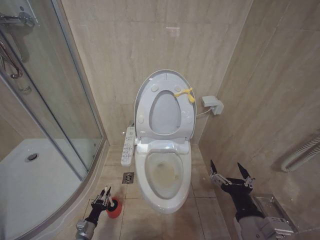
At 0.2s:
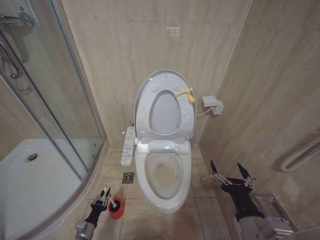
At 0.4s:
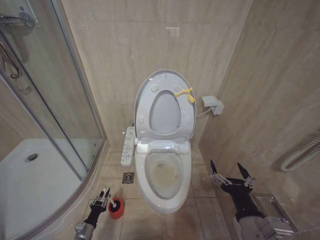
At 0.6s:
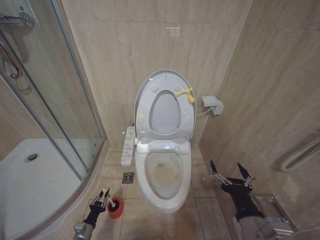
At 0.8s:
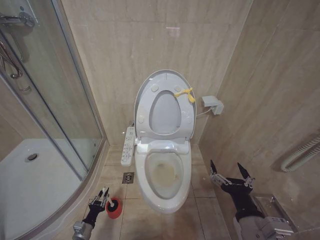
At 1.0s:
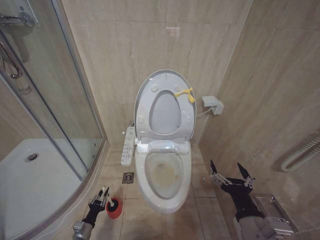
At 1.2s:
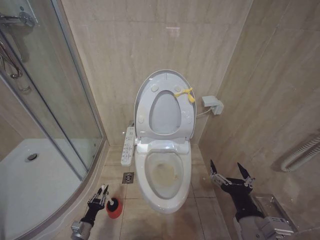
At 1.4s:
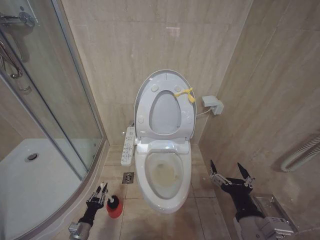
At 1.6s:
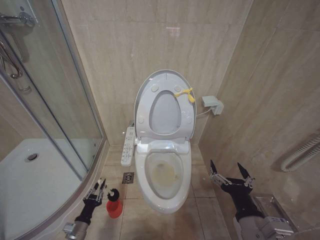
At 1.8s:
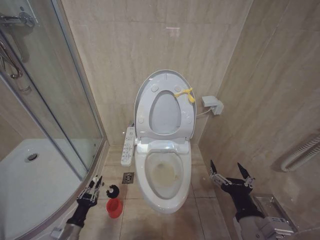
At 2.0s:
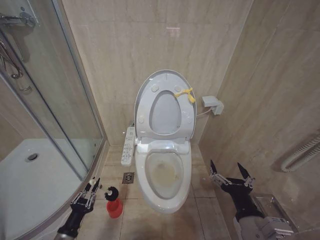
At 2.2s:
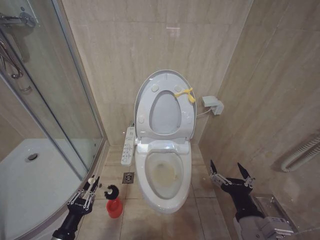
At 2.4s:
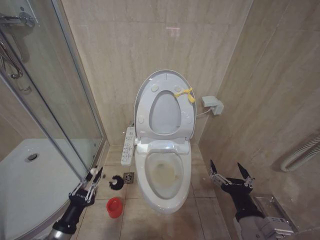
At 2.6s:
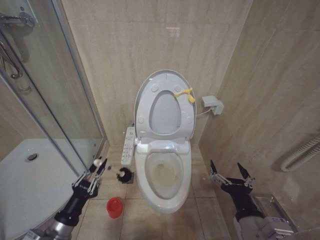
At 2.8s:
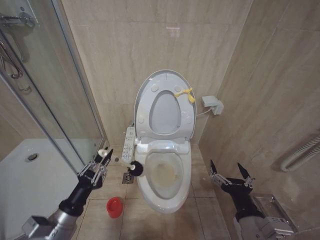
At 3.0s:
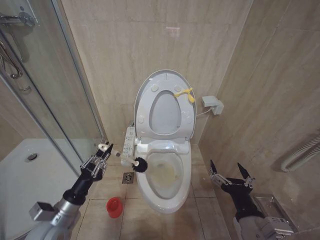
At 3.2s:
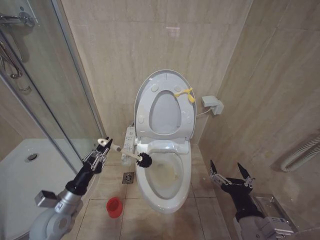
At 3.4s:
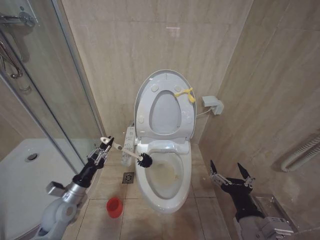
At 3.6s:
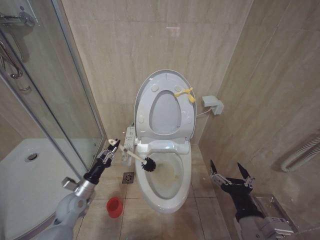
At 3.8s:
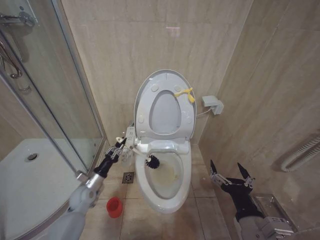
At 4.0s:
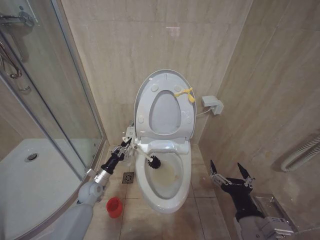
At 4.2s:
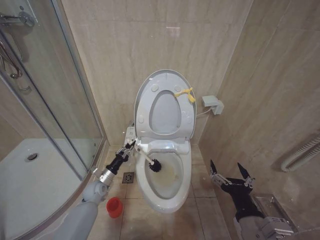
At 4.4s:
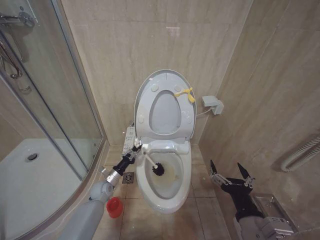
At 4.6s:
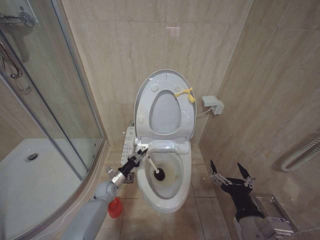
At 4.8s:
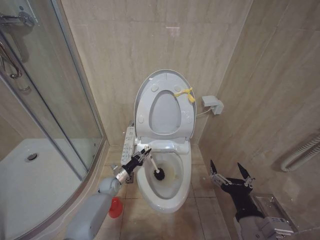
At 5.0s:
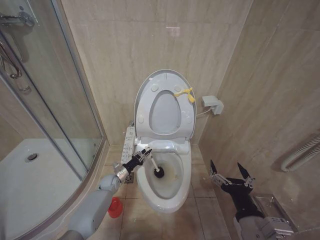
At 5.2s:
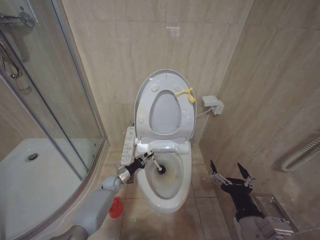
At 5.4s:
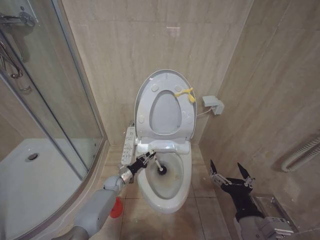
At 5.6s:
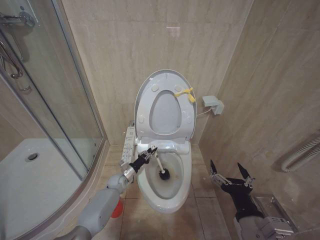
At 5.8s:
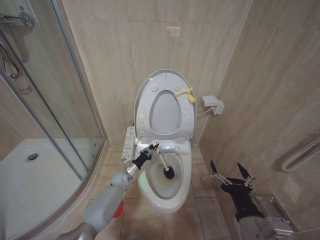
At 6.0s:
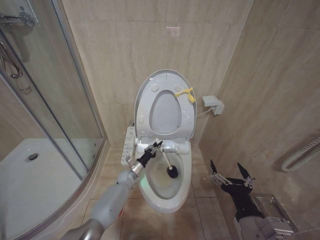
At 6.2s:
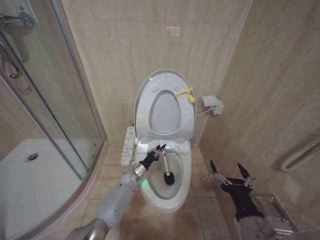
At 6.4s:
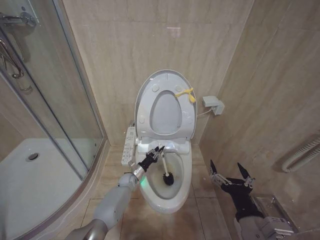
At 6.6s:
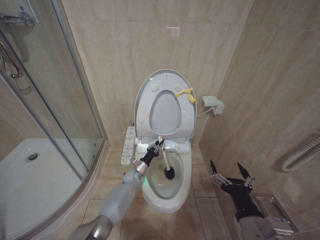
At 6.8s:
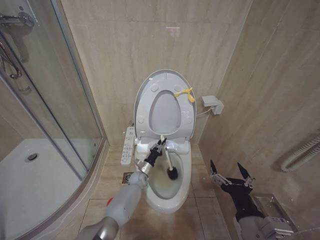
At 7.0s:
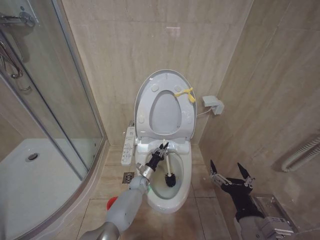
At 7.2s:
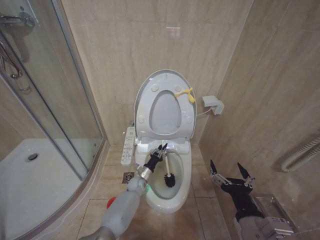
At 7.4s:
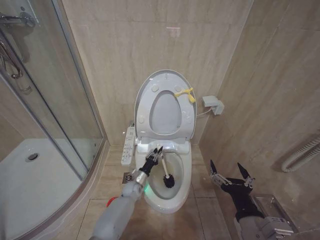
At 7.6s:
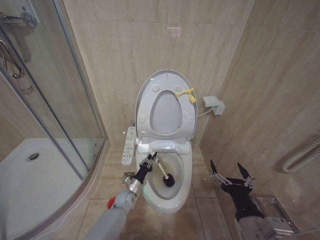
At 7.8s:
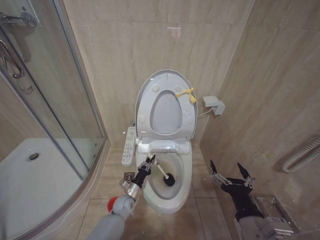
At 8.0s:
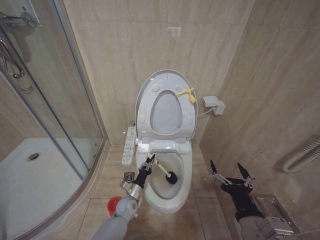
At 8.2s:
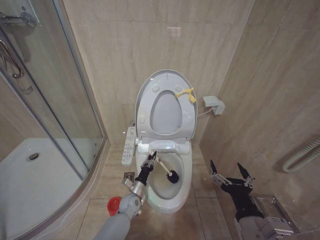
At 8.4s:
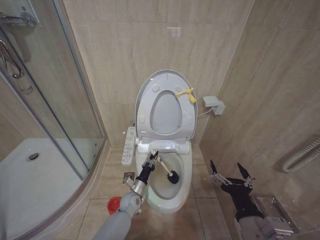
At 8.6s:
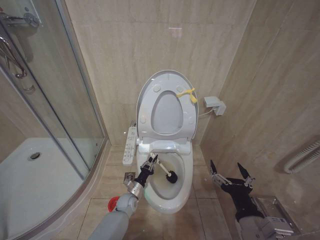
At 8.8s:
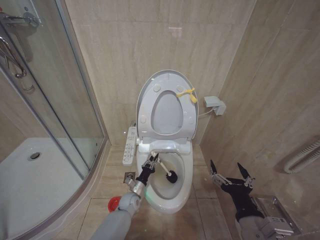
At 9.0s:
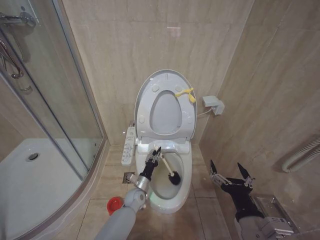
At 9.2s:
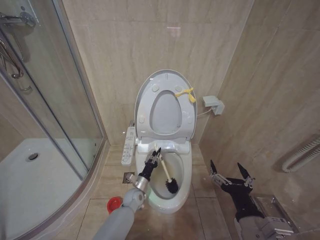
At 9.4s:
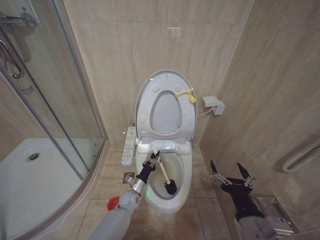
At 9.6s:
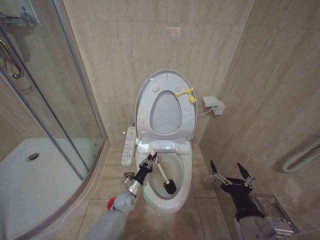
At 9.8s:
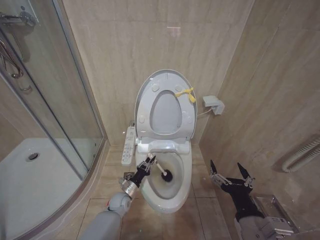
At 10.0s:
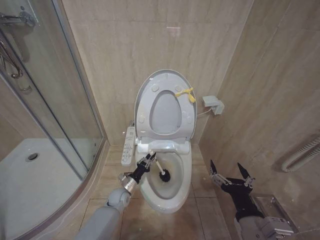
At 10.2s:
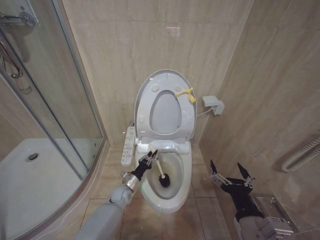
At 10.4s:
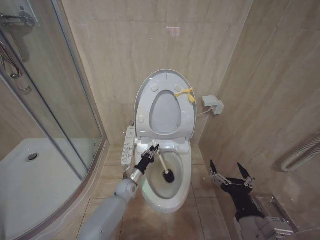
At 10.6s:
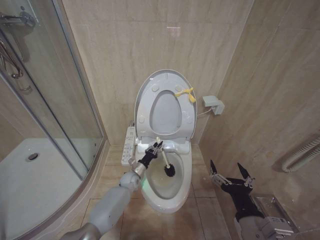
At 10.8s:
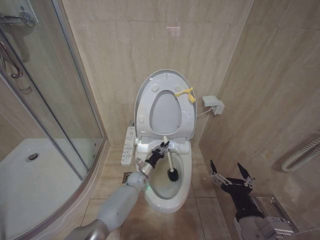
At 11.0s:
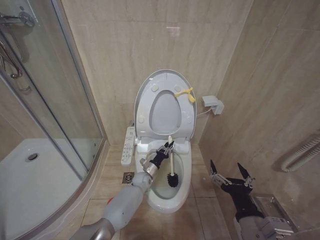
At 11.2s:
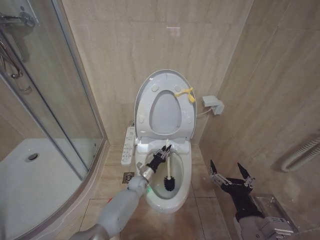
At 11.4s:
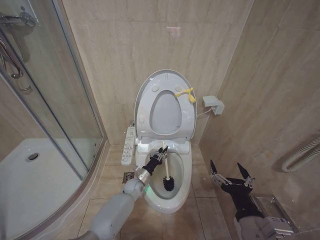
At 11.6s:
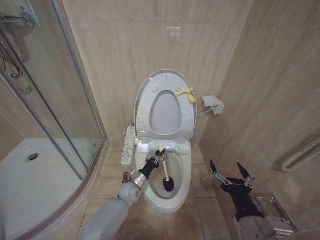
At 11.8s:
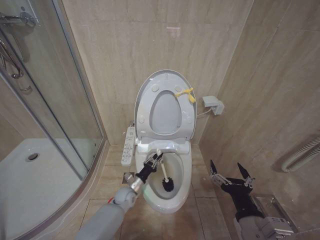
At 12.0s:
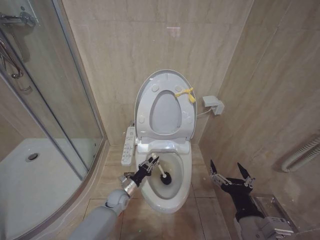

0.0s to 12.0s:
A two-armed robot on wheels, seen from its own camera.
Task of the whole recording: Open the toilet lid, clean the toilet bowl with a toilet brush, close the toilet lid, and flush.
0.0s to 1.6s: The left gripper moves upward, some 5 cm.
1.6s to 3.0s: The left gripper goes roughly 25 cm upward.
3.0s to 4.4s: The left gripper is displaced forward and downward by about 25 cm.
4.4s to 6.0s: The left gripper travels to the right and forward by roughly 10 cm.
6.0s to 7.6s: The left gripper goes some 10 cm backward, and goes to the right and returns, some 10 cm each way.
7.6s to 9.0s: The grippers move only a little.
9.0s to 10.4s: The left gripper ends up about 5 cm from where it was.
10.4s to 12.0s: The left gripper goes to the right and returns, approximately 10 cm each way.

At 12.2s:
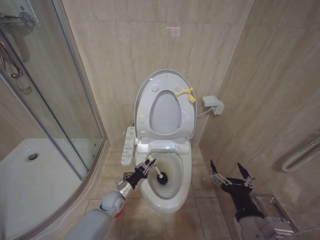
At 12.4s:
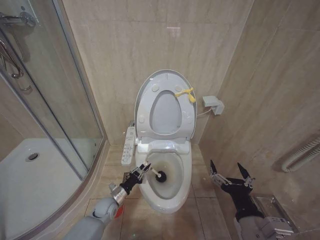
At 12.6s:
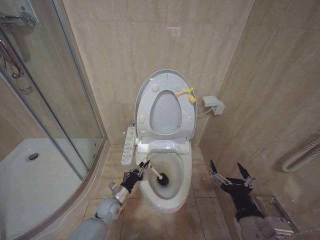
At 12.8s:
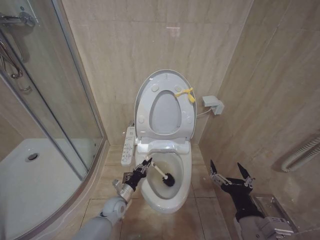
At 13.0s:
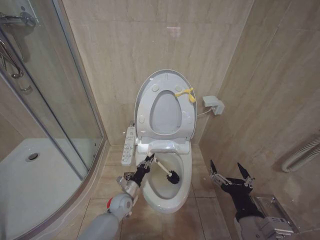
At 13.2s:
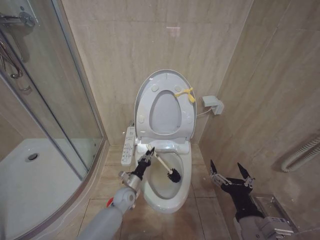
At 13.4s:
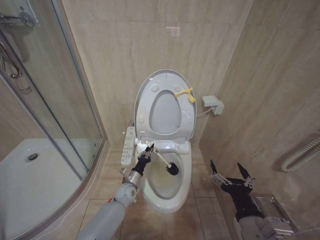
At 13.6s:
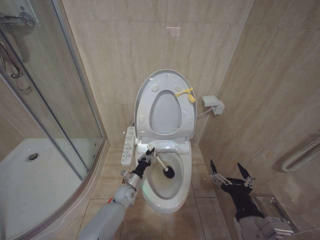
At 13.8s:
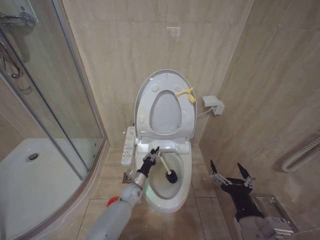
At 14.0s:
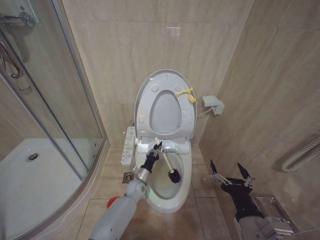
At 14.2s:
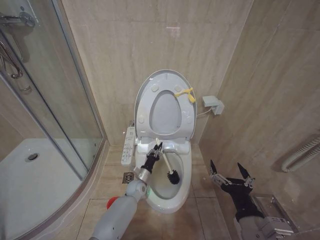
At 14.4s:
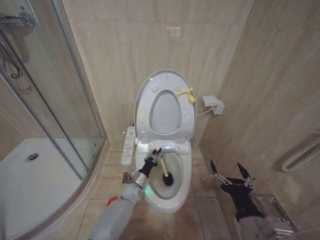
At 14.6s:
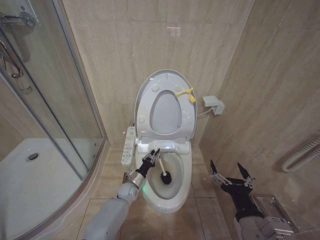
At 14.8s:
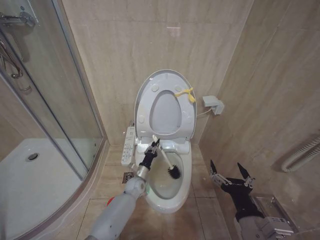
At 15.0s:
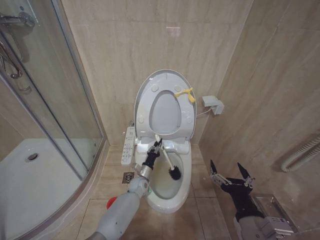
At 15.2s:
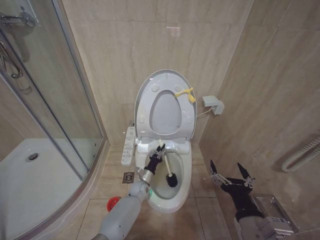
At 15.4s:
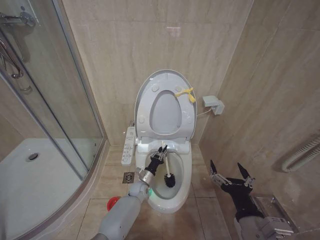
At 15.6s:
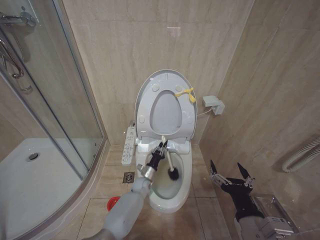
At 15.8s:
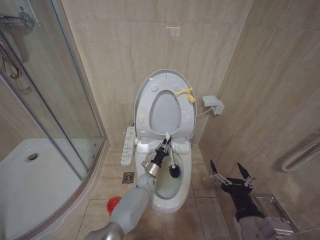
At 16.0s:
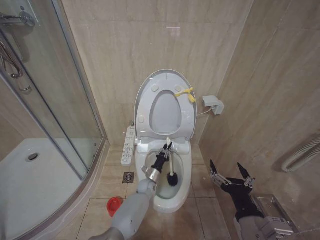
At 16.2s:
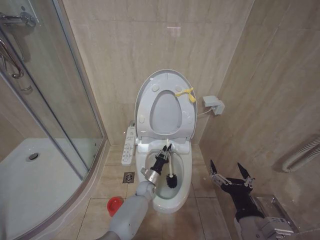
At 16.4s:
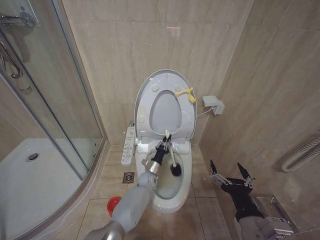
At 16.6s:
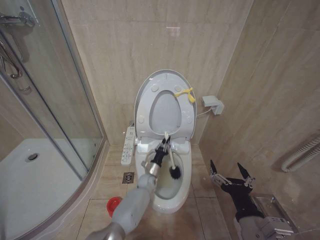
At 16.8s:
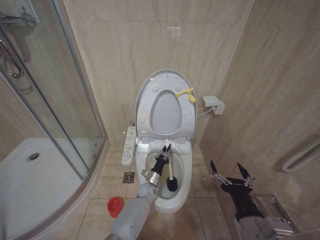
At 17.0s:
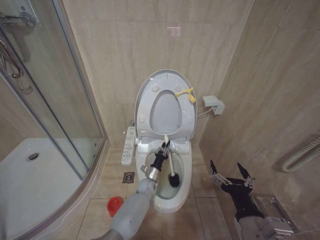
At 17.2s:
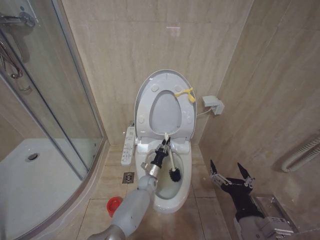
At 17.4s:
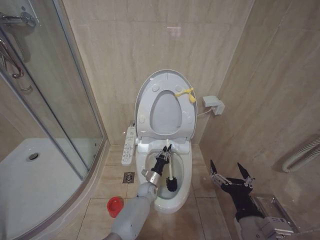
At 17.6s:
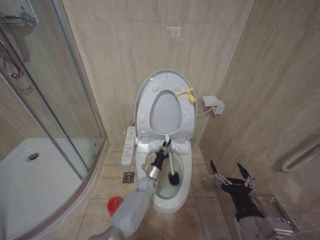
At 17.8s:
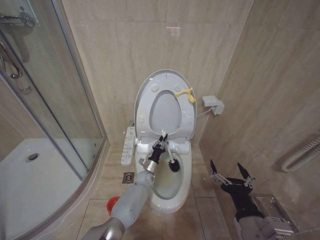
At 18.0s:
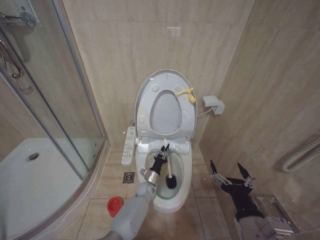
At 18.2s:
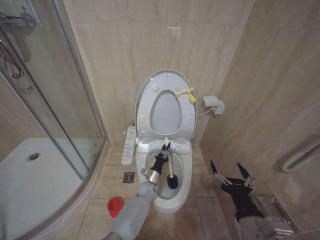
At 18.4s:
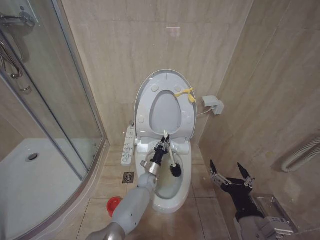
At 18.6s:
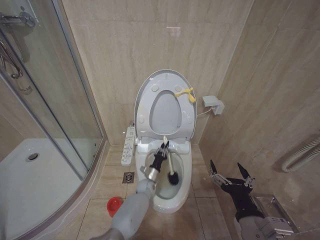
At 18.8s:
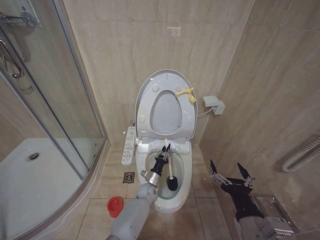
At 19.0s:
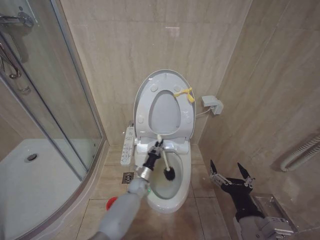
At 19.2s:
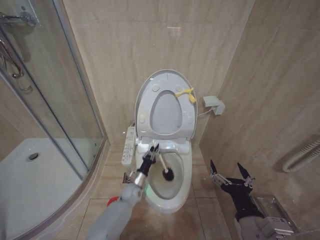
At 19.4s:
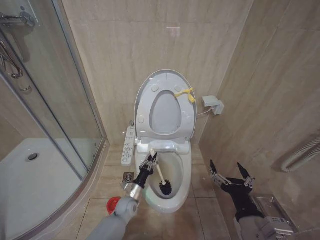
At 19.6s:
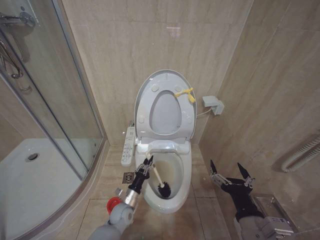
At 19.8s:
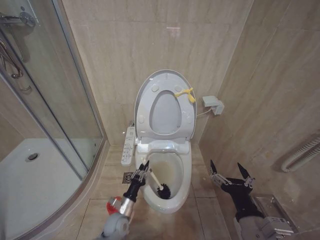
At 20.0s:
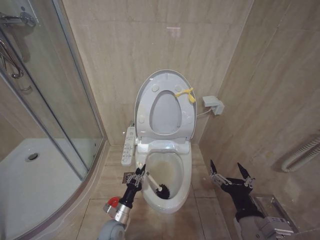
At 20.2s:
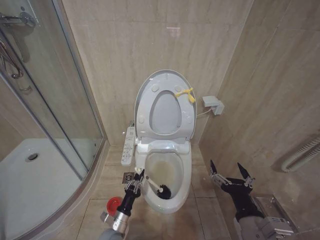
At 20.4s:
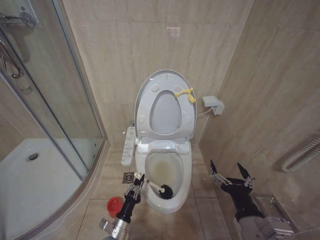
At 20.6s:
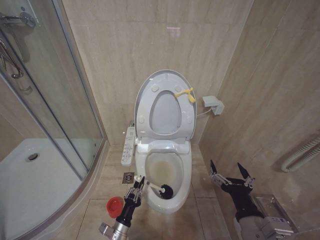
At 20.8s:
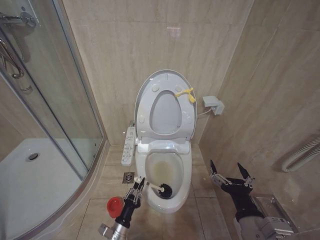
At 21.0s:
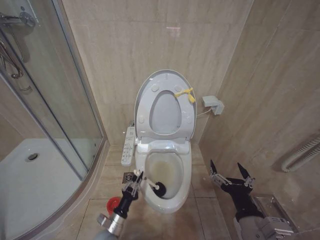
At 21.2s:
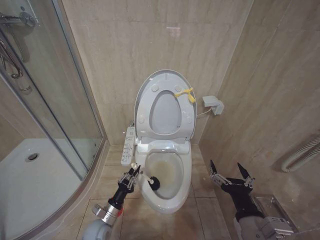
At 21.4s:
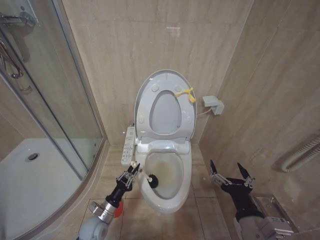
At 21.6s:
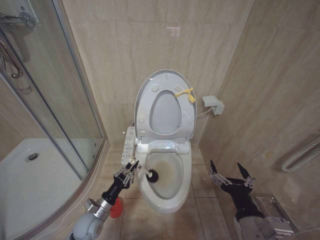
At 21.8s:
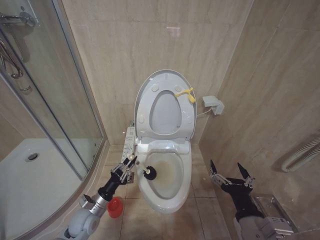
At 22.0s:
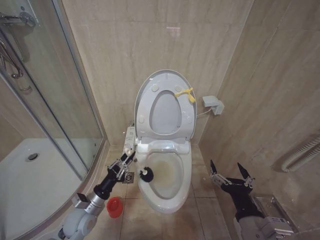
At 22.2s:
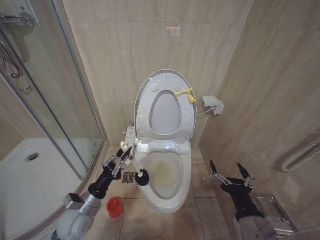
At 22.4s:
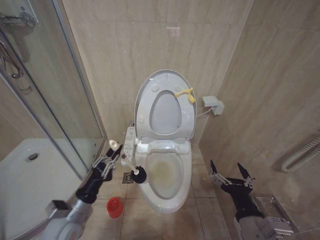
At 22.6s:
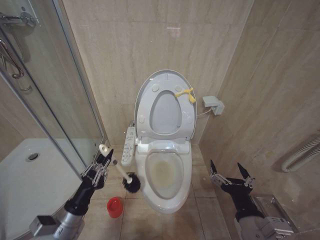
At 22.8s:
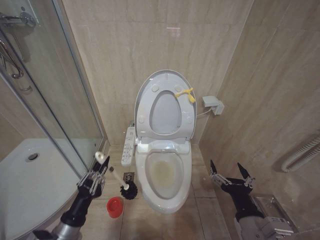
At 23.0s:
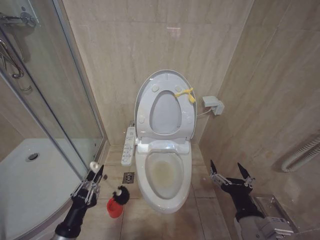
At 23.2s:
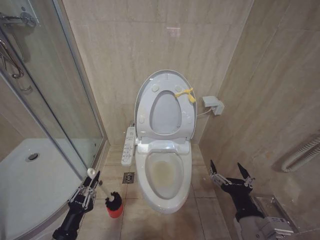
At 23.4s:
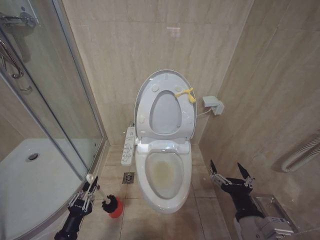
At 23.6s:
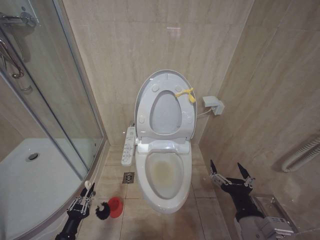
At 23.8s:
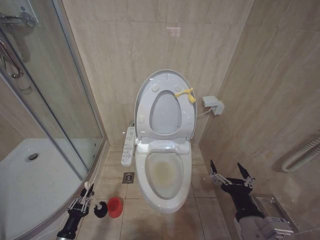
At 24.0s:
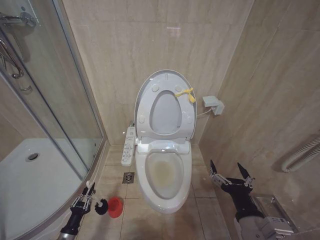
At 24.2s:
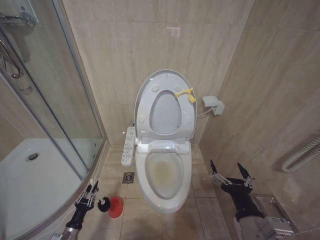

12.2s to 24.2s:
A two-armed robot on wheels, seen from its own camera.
Task of the whole recording: Open the toilet lid, clean the toilet bowl with a toilet brush, close the toilet lid, and flush.
12.2s to 13.8s: The left gripper moves to the right, roughly 5 cm.
13.8s to 15.2s: The left gripper swings left and right, approximately 5 cm each way, with 2 reversals.
15.2s to 16.6s: The left gripper shifts by about 5 cm.
16.6s to 18.2s: The left gripper changes place by about 5 cm.
18.2s to 19.8s: The left gripper heads to the left and backward, covering some 15 cm.
19.8s to 21.2s: The left gripper shifts about 5 cm to the left.
21.2s to 22.6s: The left gripper goes about 20 cm upward.
22.6s to 24.2s: The left gripper heads downward, covering roughly 25 cm.
